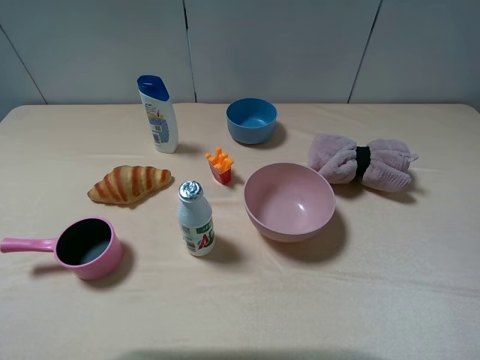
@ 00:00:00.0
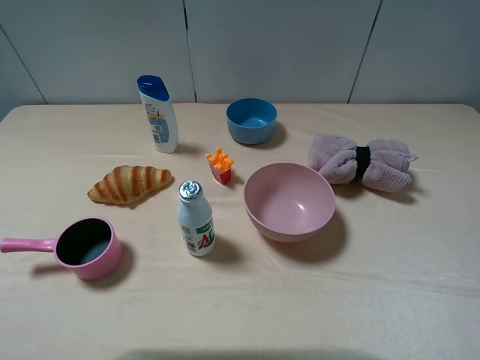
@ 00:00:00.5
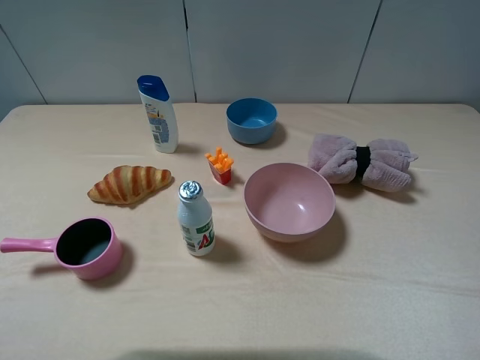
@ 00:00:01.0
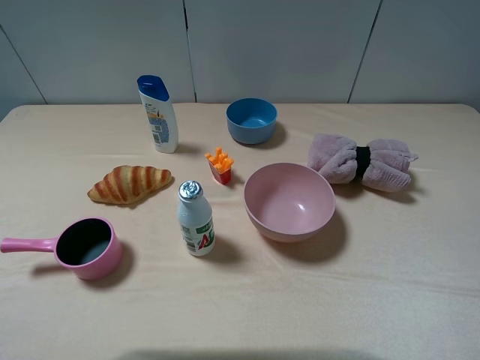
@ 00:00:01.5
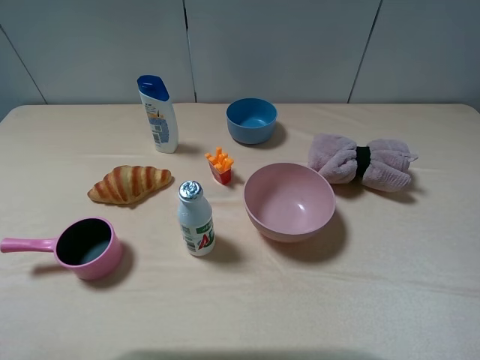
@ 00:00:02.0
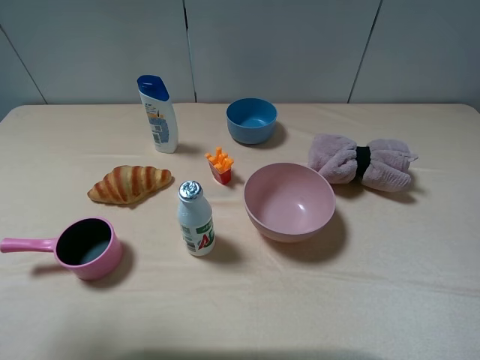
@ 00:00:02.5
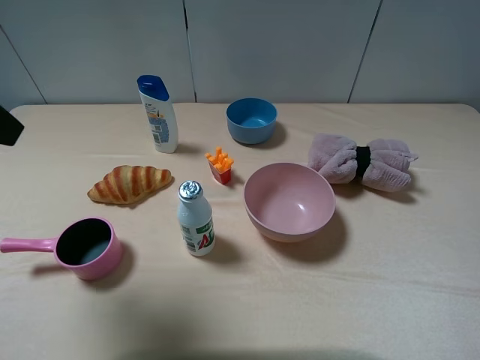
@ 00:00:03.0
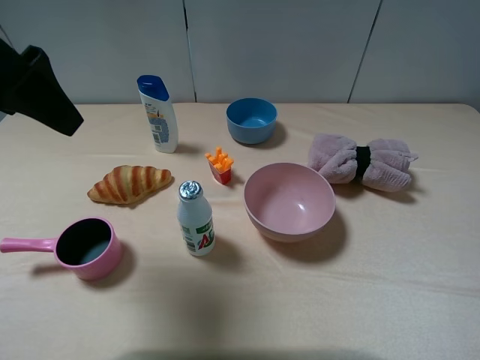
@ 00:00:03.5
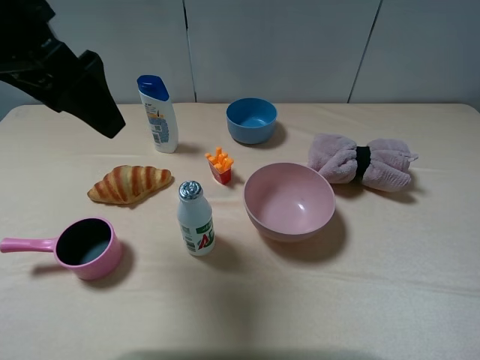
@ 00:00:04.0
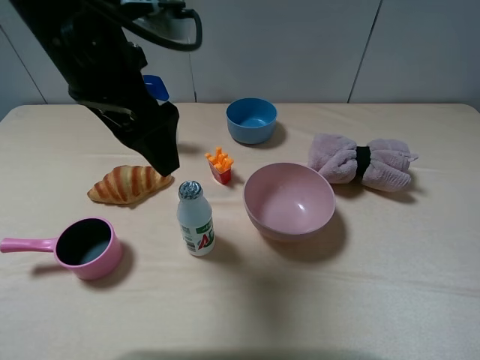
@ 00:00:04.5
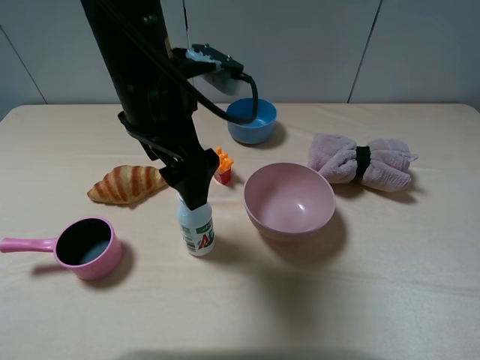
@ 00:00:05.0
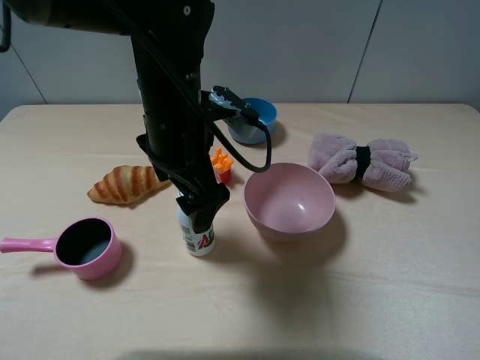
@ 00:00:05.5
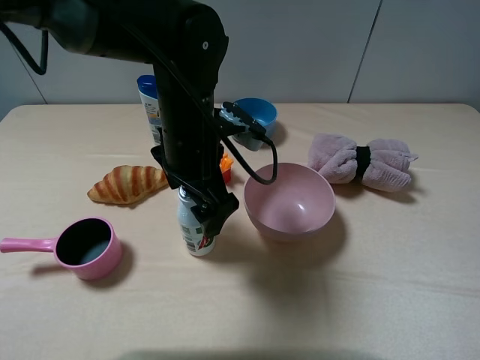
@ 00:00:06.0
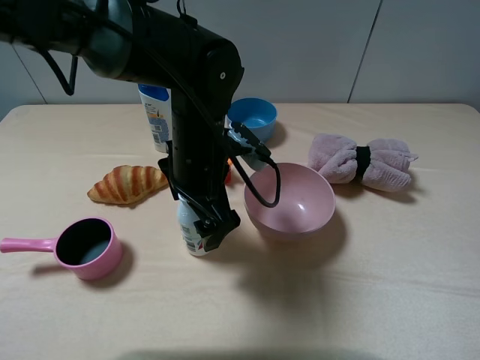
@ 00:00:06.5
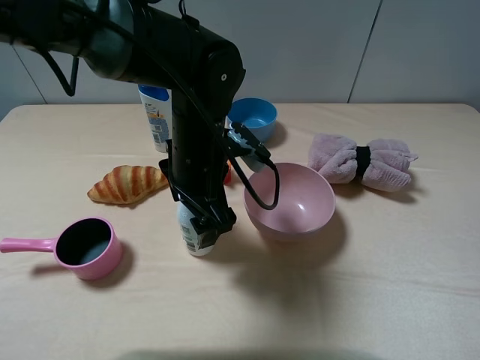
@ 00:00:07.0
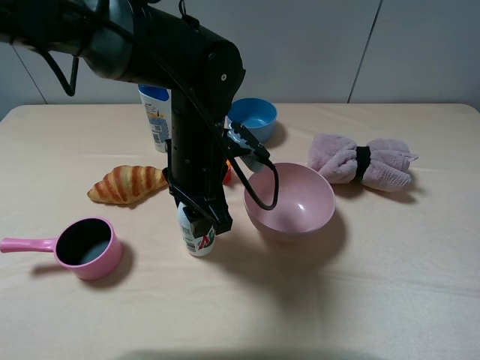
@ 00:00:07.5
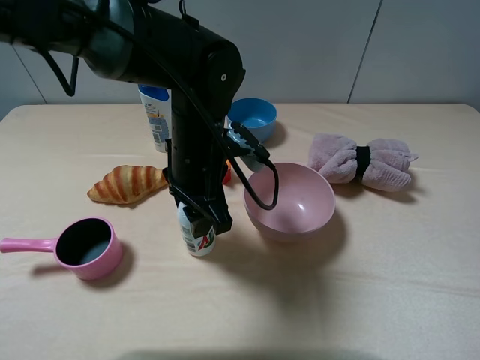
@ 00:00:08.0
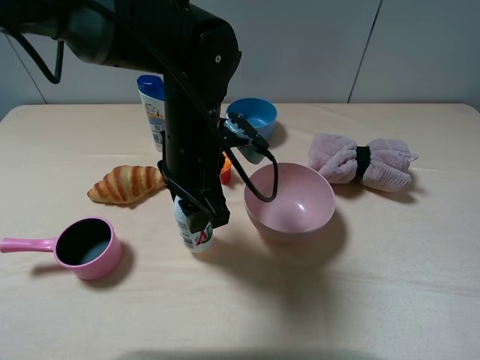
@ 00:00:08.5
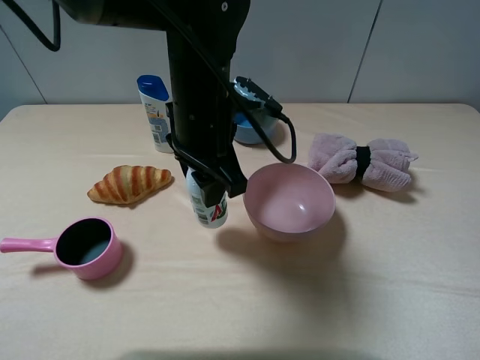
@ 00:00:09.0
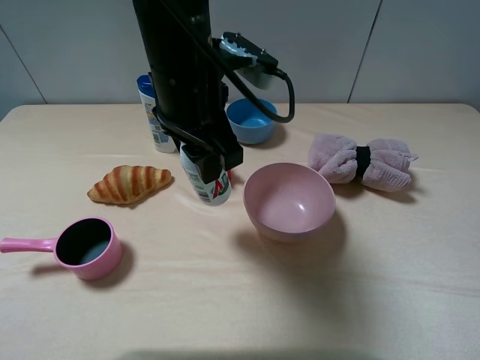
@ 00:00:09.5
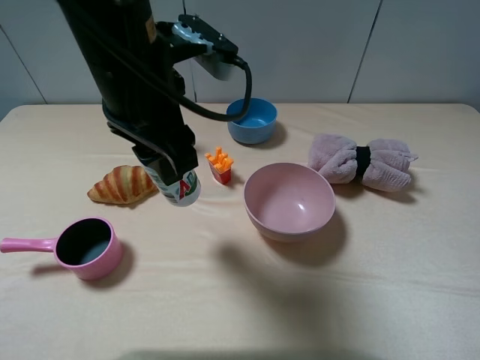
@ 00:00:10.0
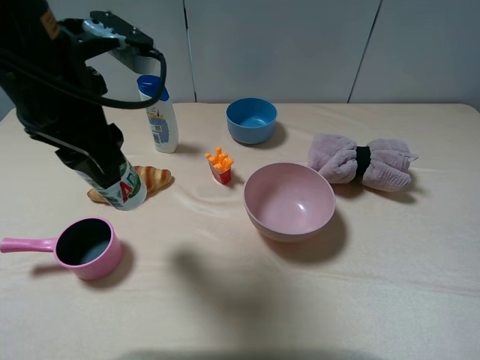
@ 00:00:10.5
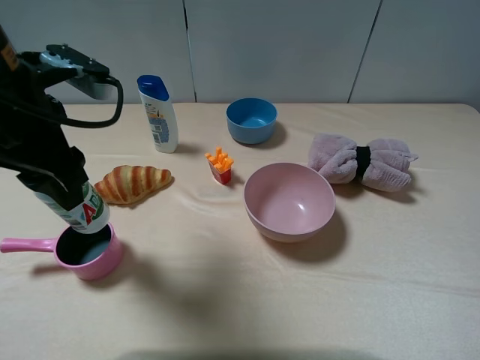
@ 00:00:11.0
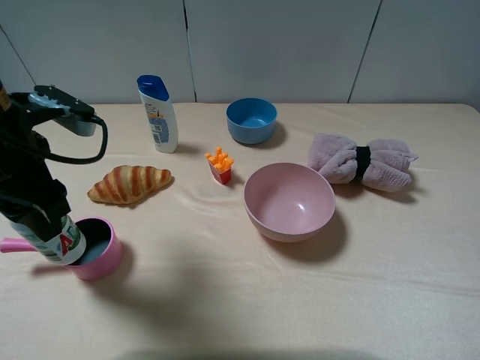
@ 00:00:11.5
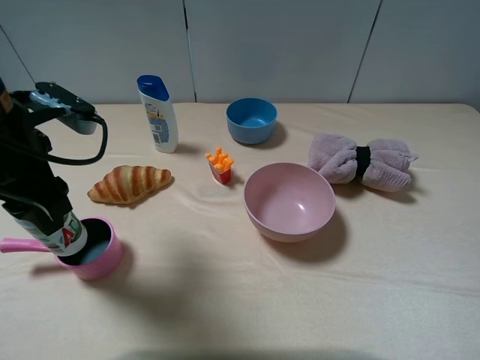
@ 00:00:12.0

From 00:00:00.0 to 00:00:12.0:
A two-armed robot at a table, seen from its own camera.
Task of the whole recording: pick up an item with a gripper and place it in a random container on the table.
Step, from 00:00:00.0 to 00:00:08.0: Grasp the AD milk with the left gripper.
From 00:00:02.0 to 00:00:04.0: The left gripper heads forward and to the right, covering approximately 25 cm.
From 00:00:04.0 to 00:00:06.0: The left gripper moves downward and to the right, some 20 cm.
From 00:00:06.0 to 00:00:08.0: The left gripper closes up.
From 00:00:08.0 to 00:00:10.0: The left gripper moves upward, approximately 15 cm.
From 00:00:10.0 to 00:00:12.0: The left gripper shifts some 15 cm to the left.

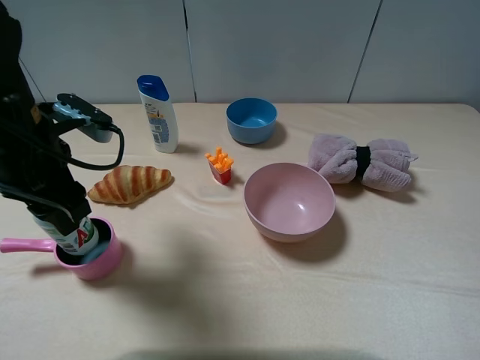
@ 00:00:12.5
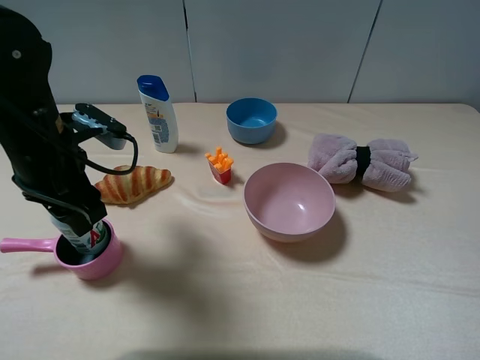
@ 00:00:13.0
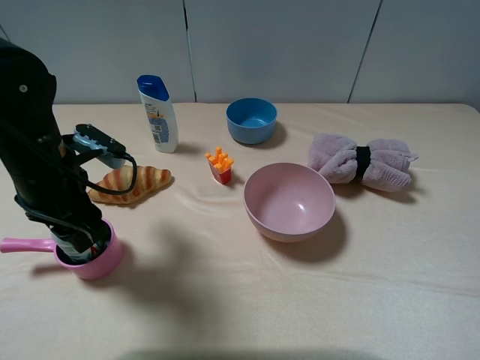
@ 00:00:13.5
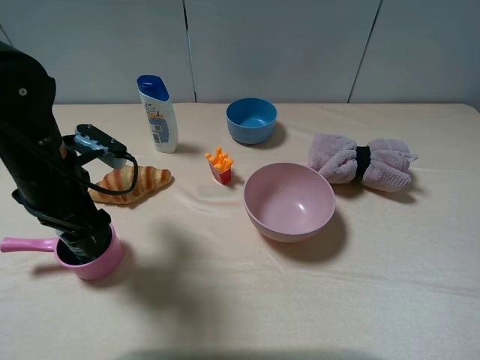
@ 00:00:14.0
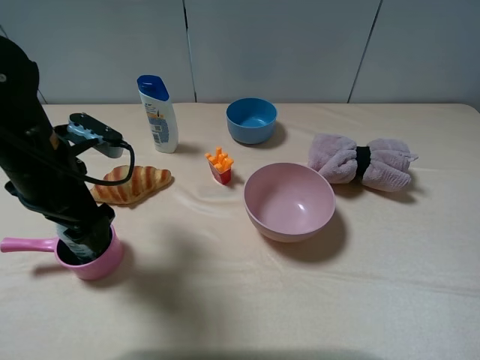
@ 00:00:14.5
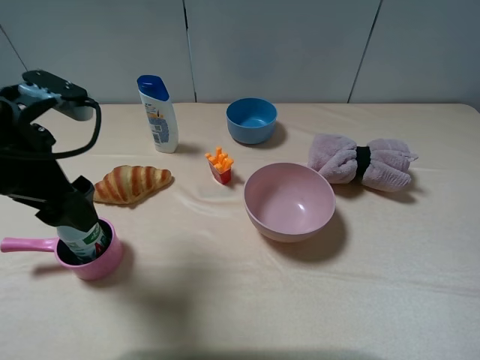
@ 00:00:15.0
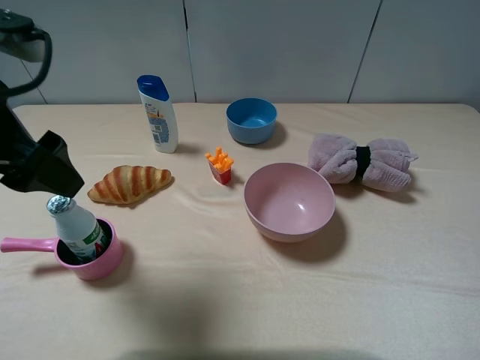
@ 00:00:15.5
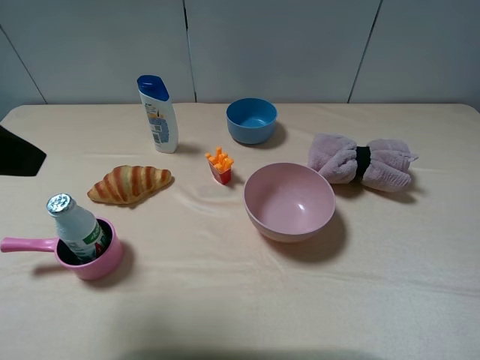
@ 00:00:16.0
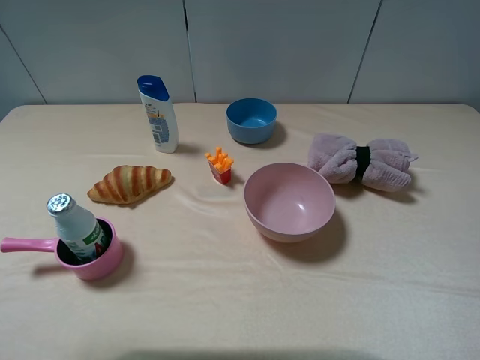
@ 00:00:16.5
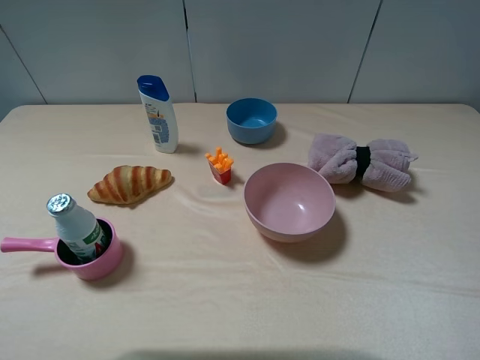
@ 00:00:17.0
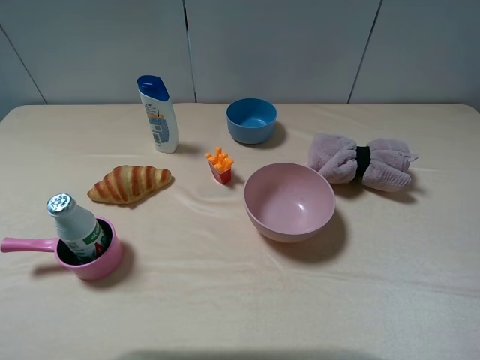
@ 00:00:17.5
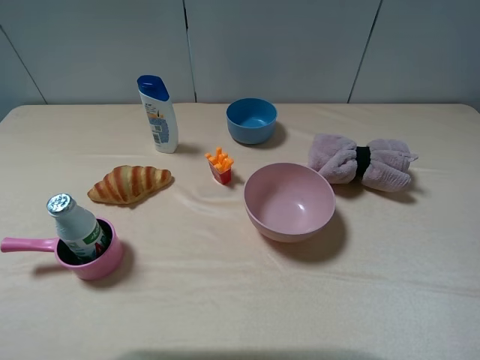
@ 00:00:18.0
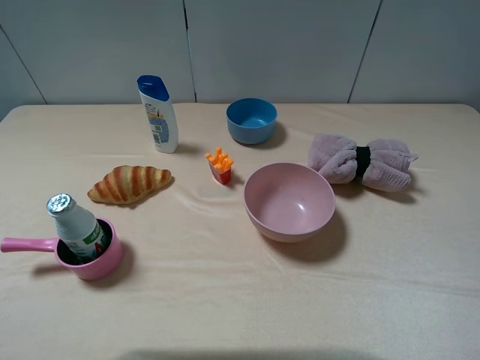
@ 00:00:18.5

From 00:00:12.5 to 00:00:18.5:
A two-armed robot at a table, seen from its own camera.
Task of the whole recording: pick up an item with a gripper and place it in a random container on the table.
Step, from 00:00:12.5 to 00:00:15.0: Place the AD milk into the pink pot with the left gripper.
From 00:00:12.5 to 00:00:14.5: The left gripper opens its fingers.
From 00:00:14.5 to 00:00:16.5: The left gripper goes some 25 cm upward, backward and to the left.
